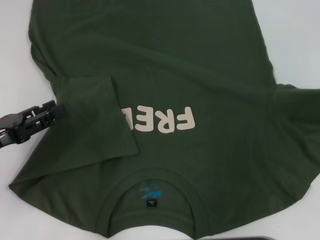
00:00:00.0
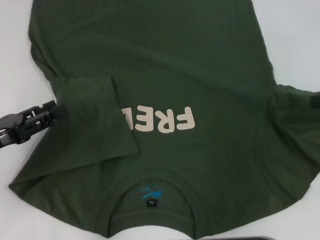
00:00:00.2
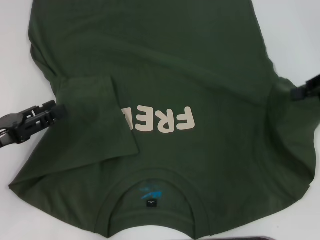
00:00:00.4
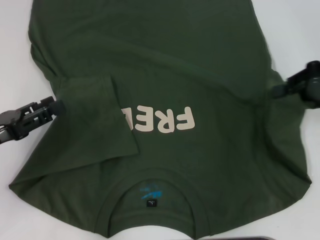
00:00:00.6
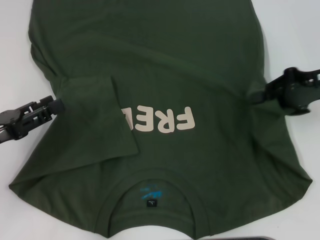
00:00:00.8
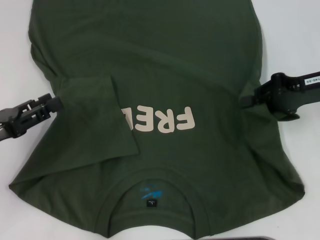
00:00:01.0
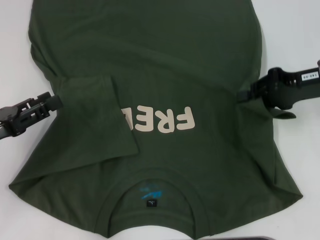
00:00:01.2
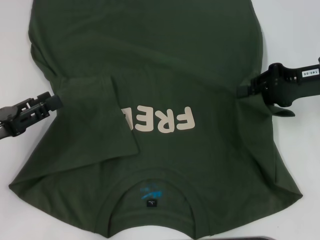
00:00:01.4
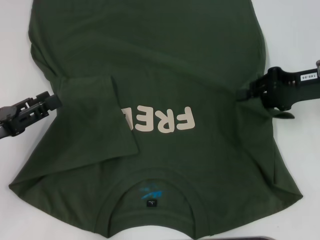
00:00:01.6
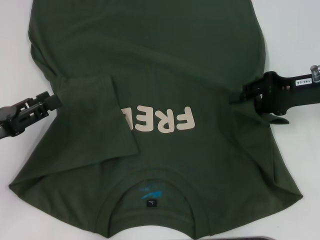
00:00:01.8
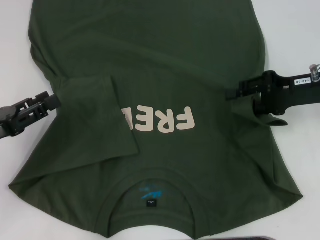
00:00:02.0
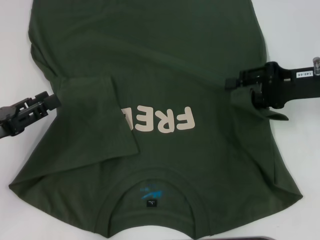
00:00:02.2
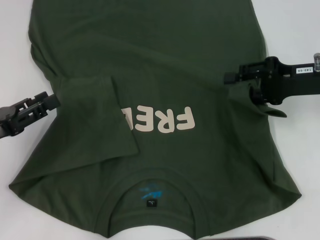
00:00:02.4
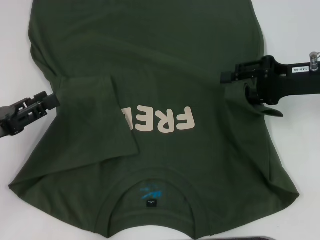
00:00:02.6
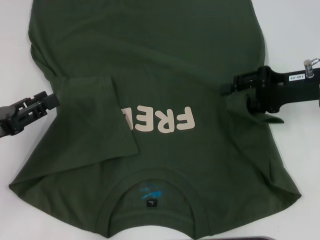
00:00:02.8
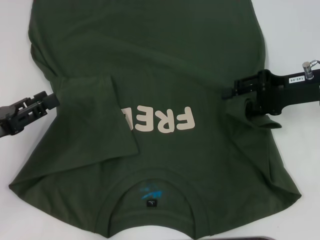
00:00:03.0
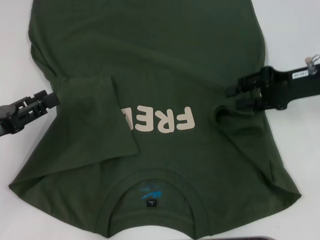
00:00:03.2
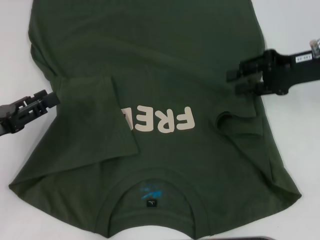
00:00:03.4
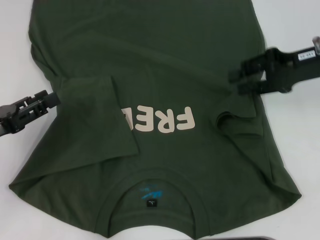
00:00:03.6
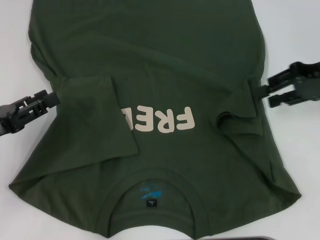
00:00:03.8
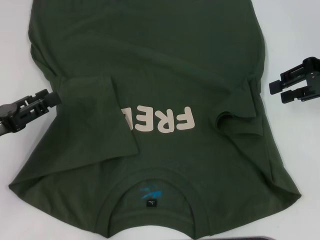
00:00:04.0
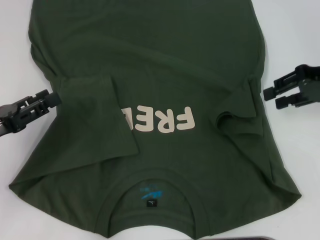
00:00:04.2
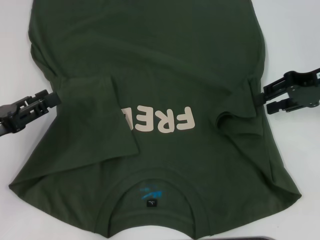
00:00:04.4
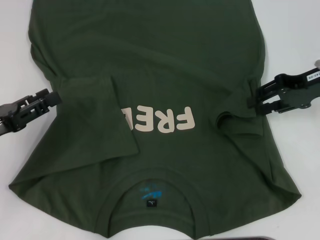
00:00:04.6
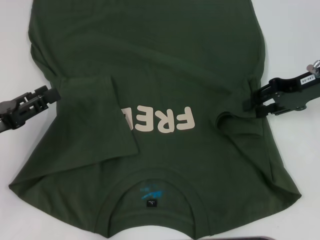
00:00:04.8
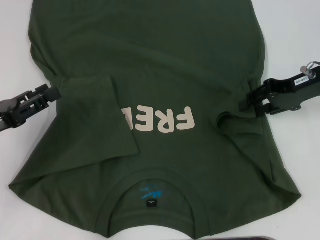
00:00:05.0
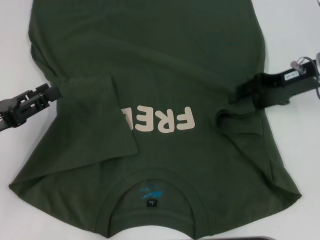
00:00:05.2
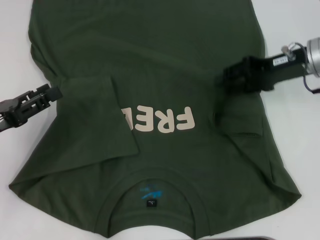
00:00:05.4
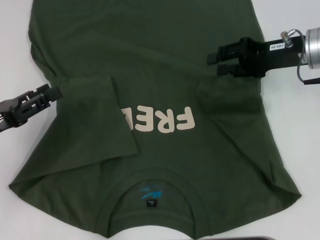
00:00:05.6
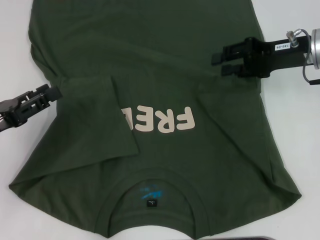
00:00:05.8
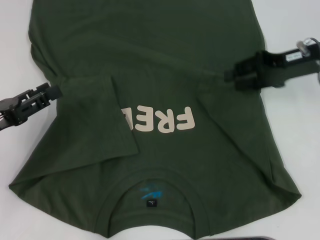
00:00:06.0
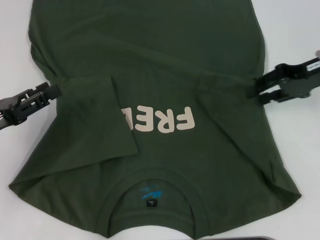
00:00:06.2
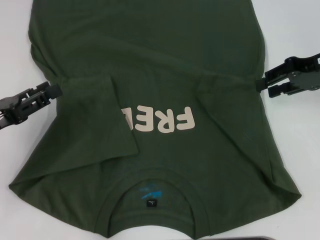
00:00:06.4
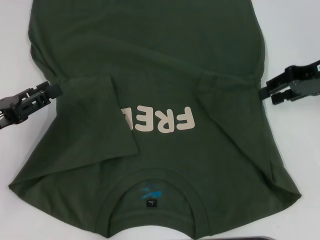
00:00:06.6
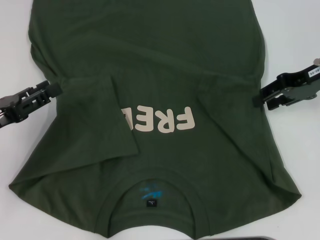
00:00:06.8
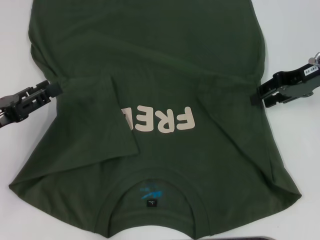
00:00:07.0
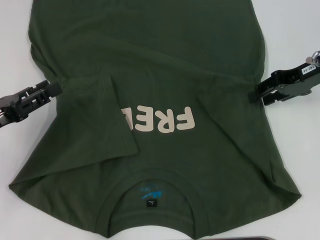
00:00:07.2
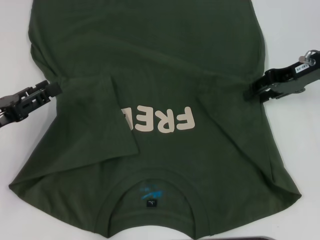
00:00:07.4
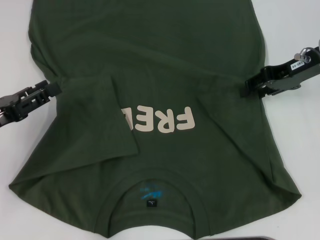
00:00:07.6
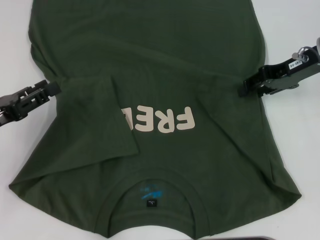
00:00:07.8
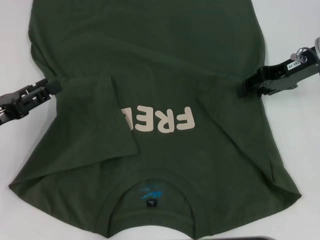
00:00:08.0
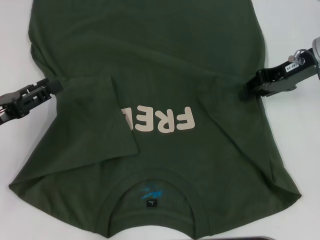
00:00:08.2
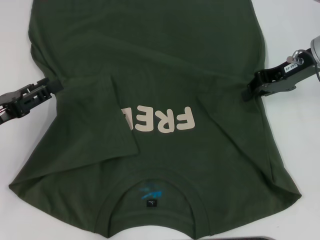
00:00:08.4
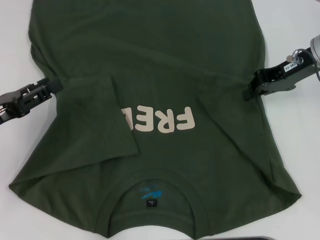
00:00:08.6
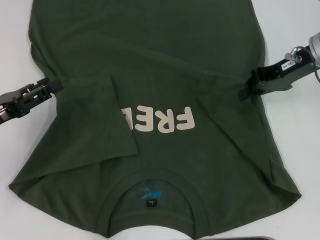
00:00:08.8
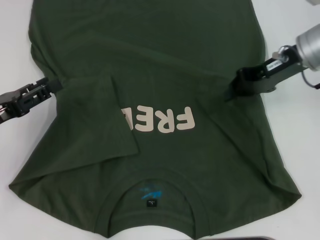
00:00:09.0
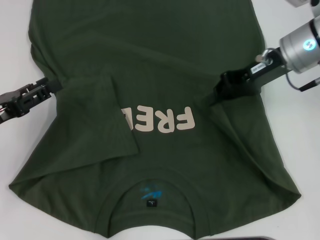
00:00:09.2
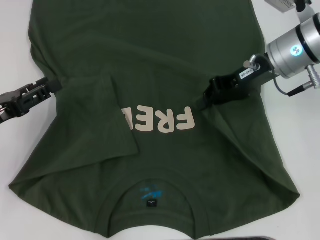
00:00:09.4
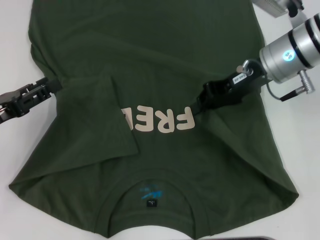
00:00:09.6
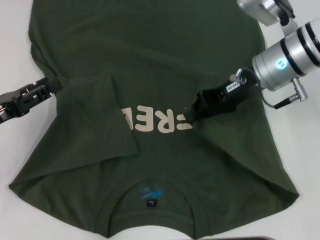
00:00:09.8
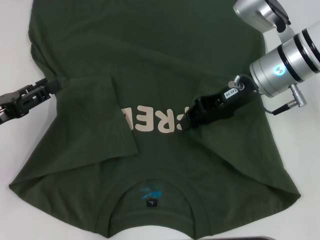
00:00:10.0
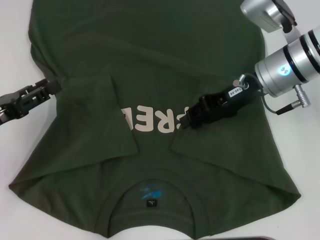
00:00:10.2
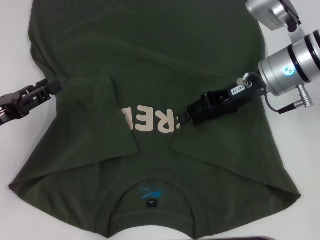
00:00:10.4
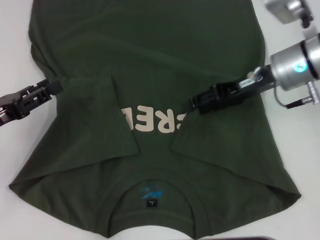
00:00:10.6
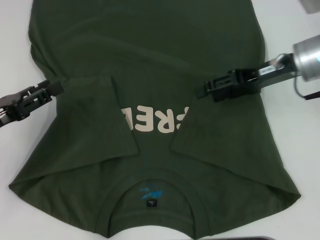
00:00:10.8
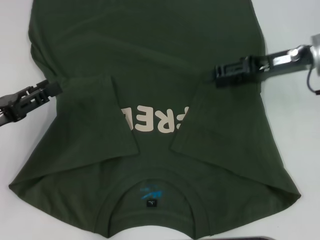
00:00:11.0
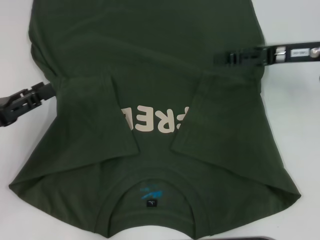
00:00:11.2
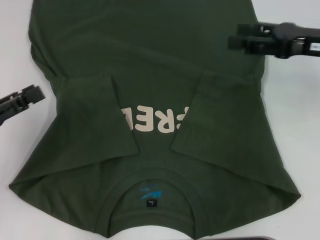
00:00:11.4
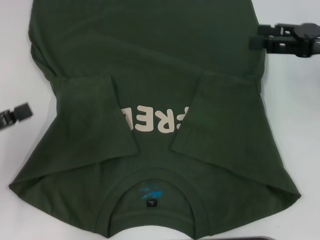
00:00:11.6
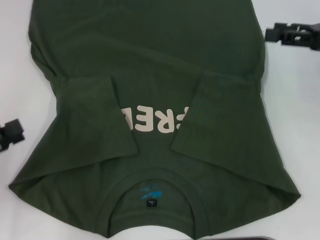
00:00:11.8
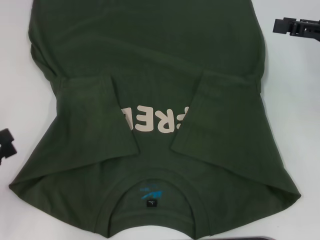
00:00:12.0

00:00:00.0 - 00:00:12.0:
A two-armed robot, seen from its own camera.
Step, 00:00:00.0 - 00:00:10.0: Fold the bottom right sleeve with your right hand.
00:00:00.0 - 00:00:01.6: The right gripper heads to the left, covering some 10 cm.
00:00:01.6 - 00:00:03.0: The right gripper opens its fingers.
00:00:04.4 - 00:00:07.6: The grippers stay close to where they were, moving slightly.
00:00:07.6 - 00:00:09.0: The right gripper closes its fingers.
00:00:09.0 - 00:00:10.4: The right gripper moves roughly 5 cm.
00:00:10.4 - 00:00:12.0: The right gripper moves to the right, approximately 15 cm, and opens. Meanwhile the left gripper is displaced backward and to the left by about 10 cm.

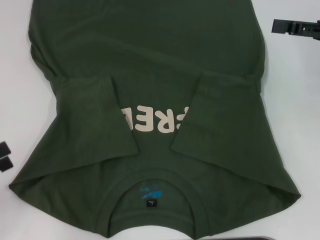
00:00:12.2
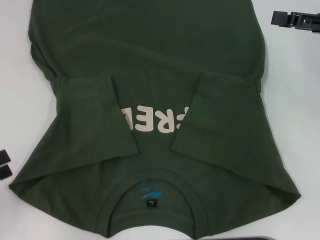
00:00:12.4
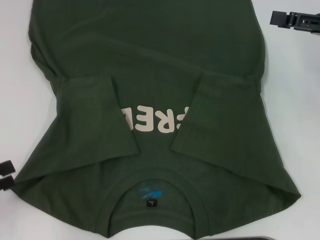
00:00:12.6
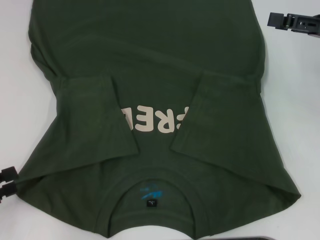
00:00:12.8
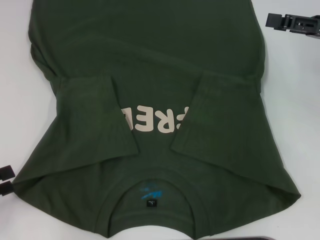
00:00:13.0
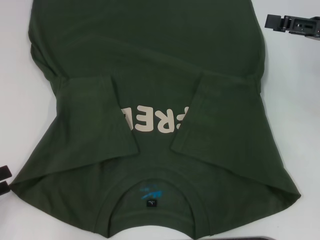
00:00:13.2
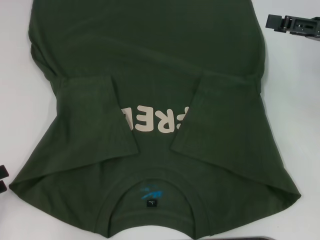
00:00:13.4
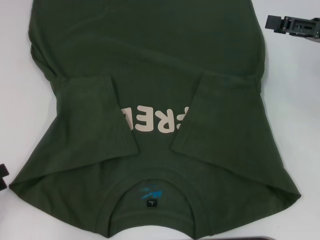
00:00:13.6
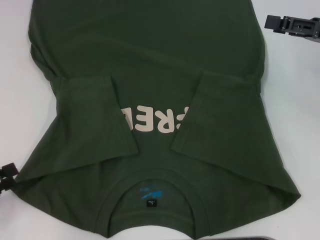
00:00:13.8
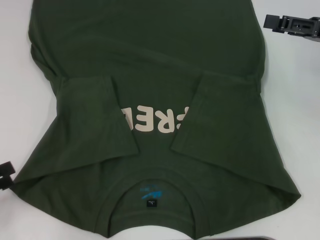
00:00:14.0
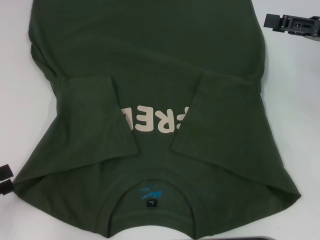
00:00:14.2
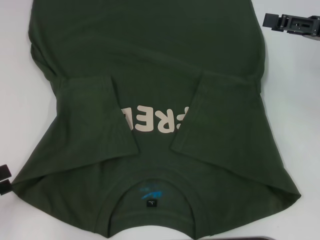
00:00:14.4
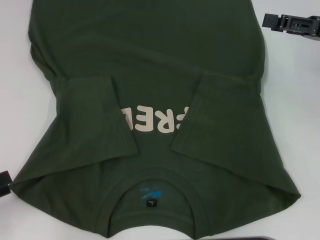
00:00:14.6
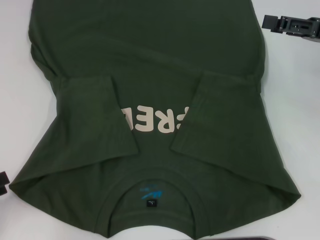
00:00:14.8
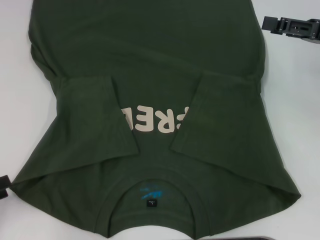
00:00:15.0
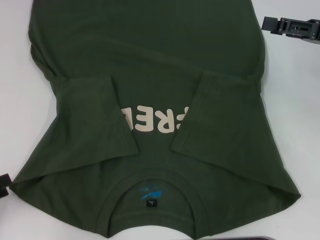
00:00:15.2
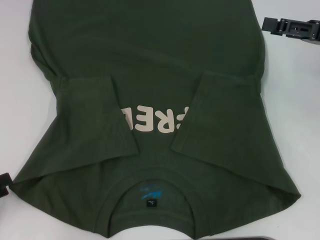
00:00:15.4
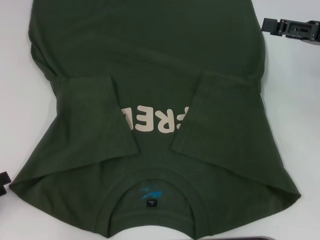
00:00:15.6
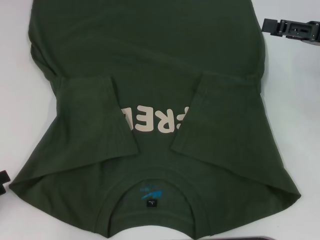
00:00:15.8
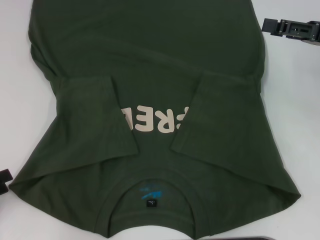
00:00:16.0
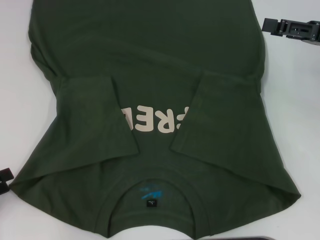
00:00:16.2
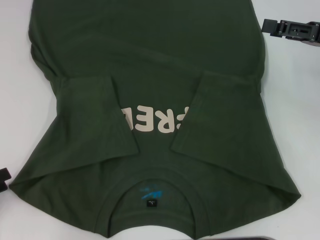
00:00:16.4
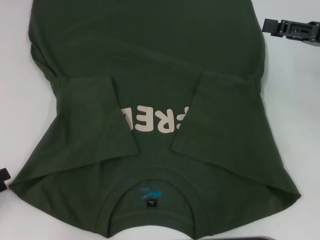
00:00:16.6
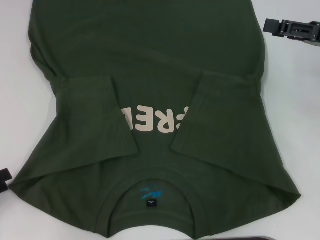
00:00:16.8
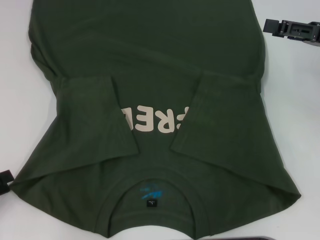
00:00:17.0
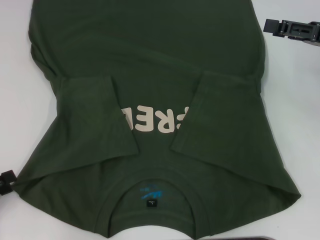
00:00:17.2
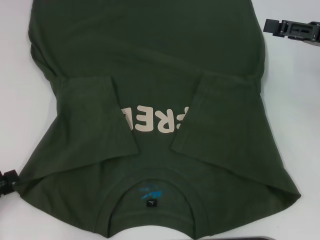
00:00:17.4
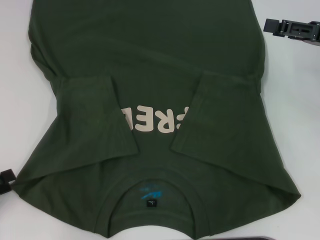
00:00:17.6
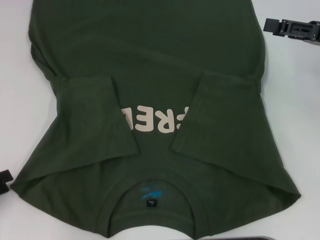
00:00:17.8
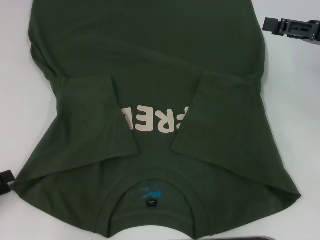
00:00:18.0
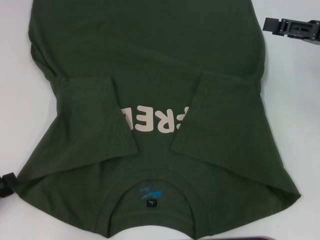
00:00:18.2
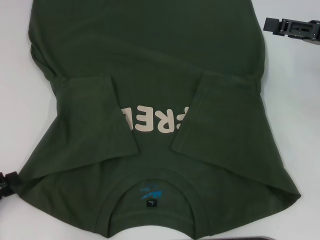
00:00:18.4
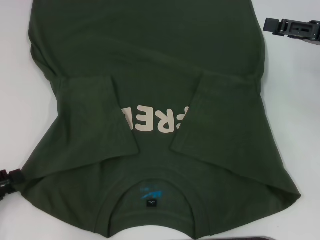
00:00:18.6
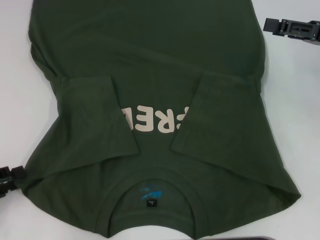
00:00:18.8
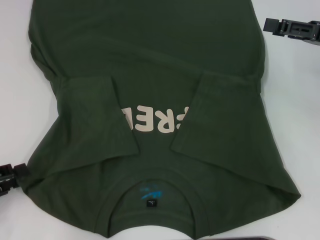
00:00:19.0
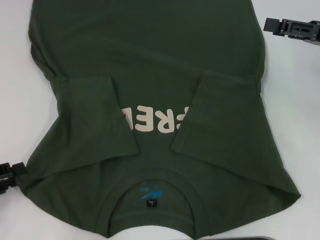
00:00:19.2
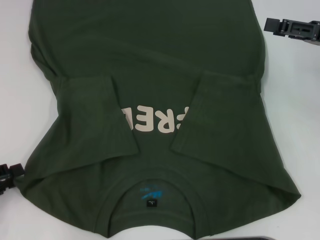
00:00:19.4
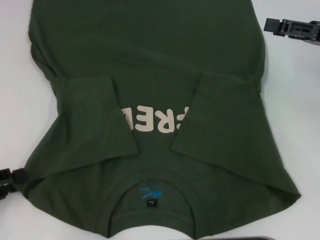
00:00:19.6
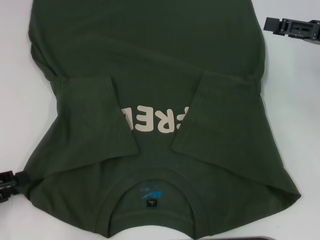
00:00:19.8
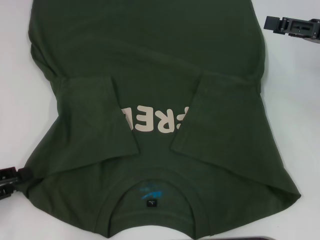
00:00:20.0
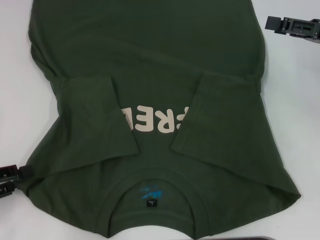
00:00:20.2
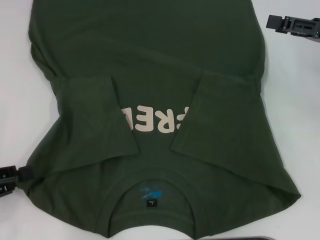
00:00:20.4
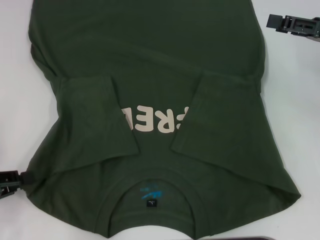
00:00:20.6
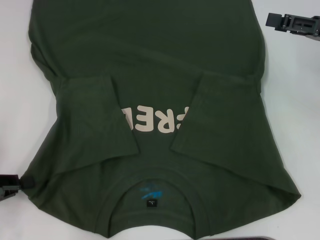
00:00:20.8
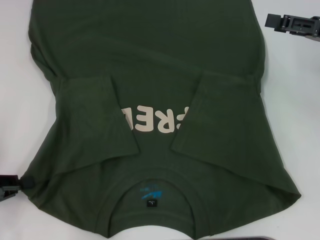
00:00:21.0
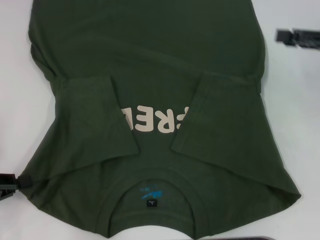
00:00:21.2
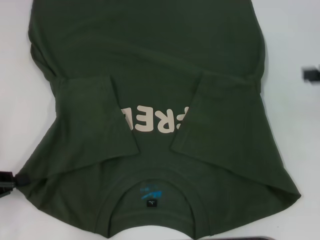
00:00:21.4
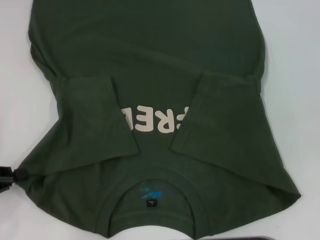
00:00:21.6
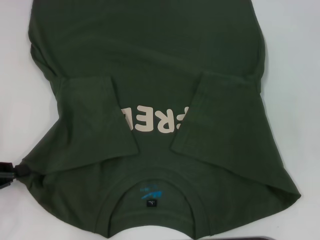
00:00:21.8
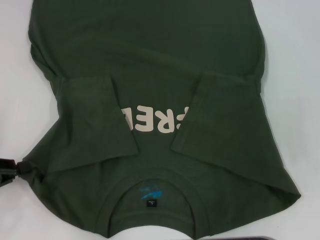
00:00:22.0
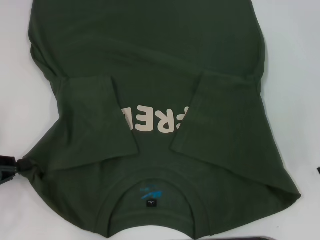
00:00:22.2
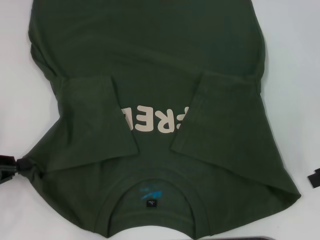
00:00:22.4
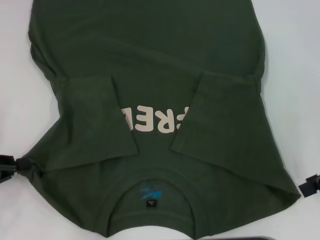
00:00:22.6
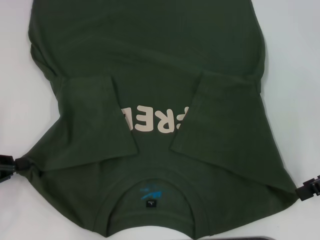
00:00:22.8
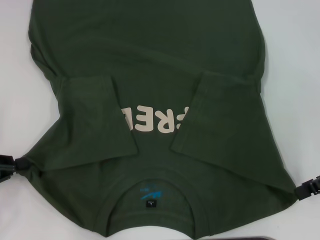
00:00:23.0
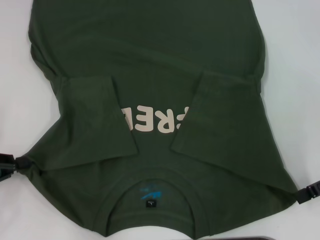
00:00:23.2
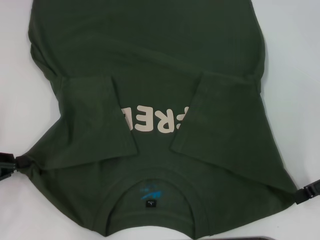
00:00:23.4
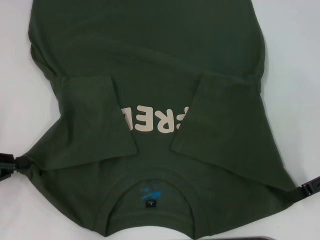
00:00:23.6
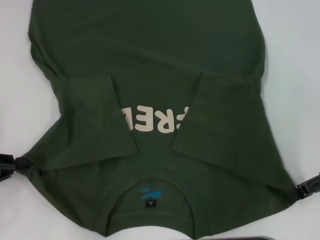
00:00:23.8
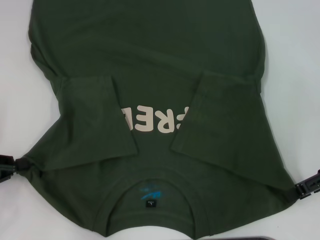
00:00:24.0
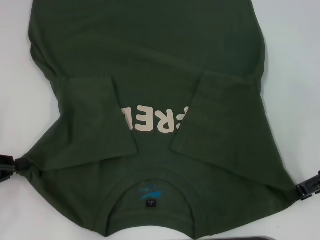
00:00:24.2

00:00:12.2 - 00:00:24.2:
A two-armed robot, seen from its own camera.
Step, 00:00:12.2 - 00:00:20.8: Grab the bottom left corner with your left hand.
00:00:12.2 - 00:00:16.6: The grippers stay close to where they were, moving slightly.
00:00:16.6 - 00:00:18.2: The two grippers keep their place.
00:00:19.8 - 00:00:21.2: The left gripper closes.
00:00:21.2 - 00:00:22.6: The right gripper heads backward, covering roughly 5 cm.
